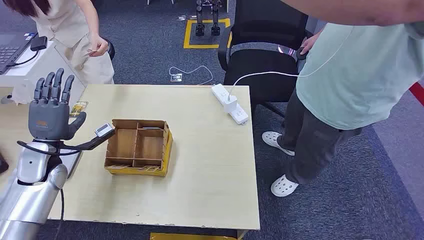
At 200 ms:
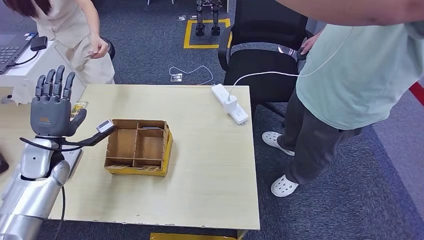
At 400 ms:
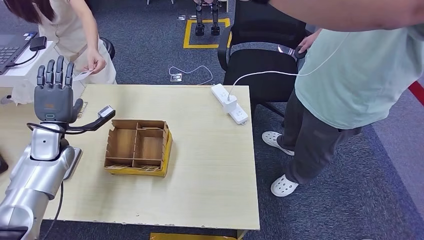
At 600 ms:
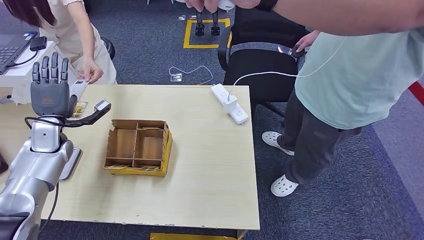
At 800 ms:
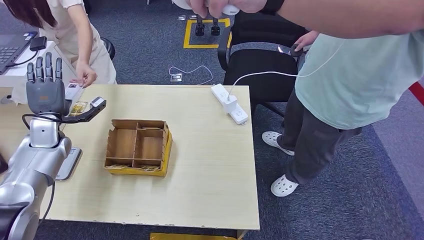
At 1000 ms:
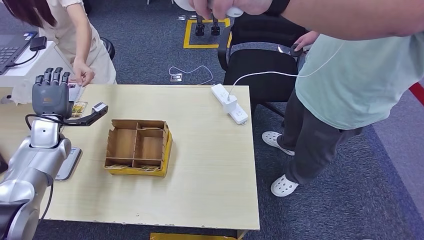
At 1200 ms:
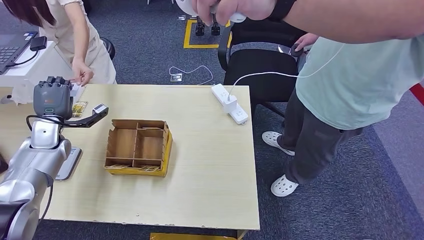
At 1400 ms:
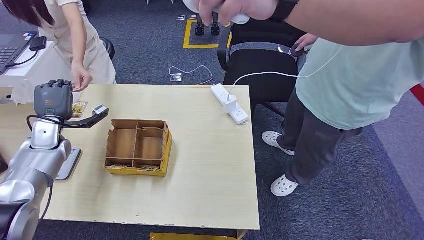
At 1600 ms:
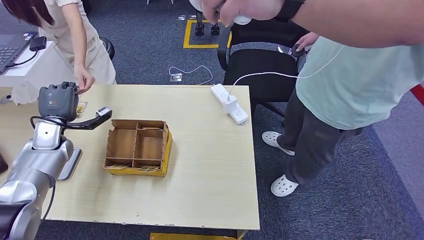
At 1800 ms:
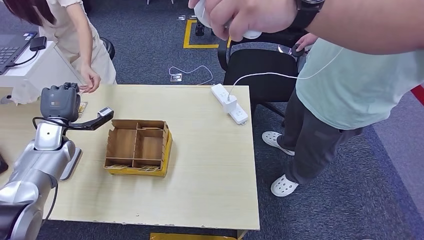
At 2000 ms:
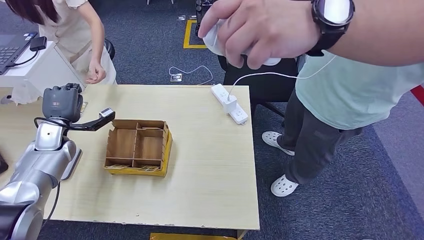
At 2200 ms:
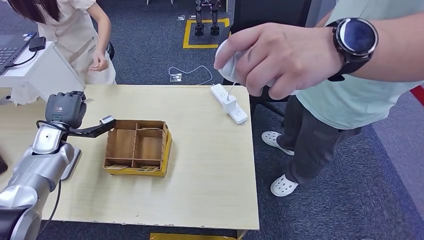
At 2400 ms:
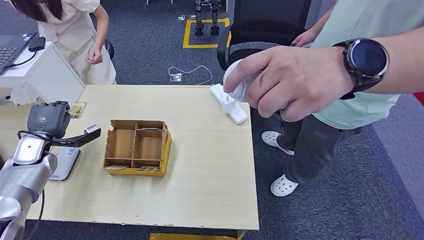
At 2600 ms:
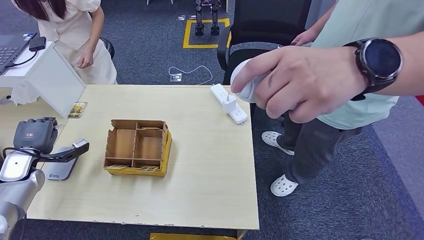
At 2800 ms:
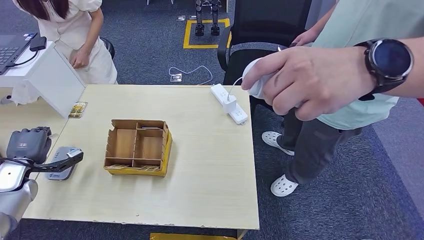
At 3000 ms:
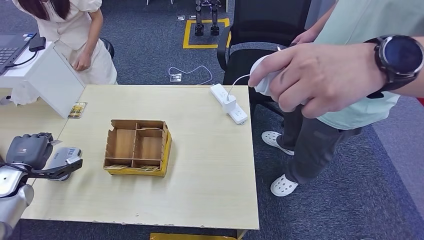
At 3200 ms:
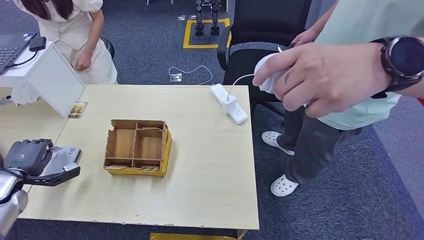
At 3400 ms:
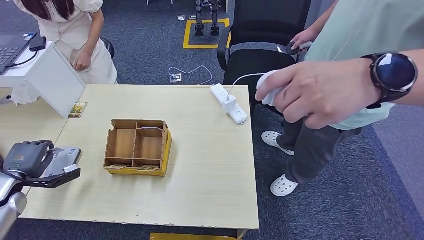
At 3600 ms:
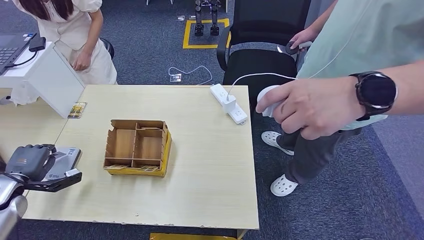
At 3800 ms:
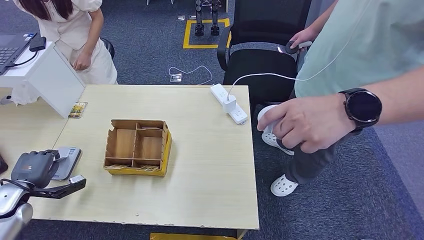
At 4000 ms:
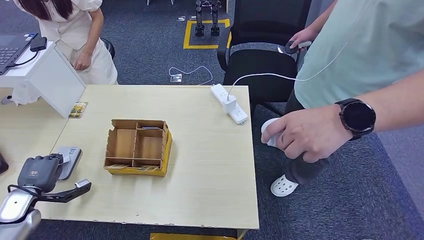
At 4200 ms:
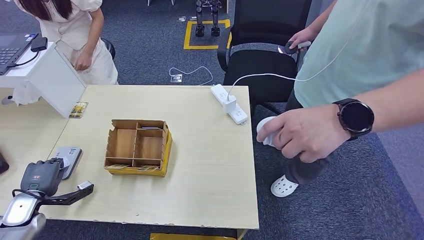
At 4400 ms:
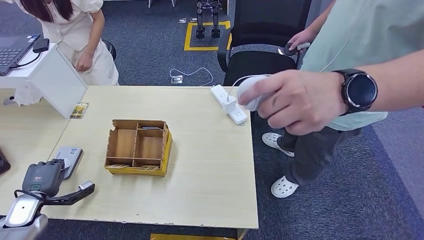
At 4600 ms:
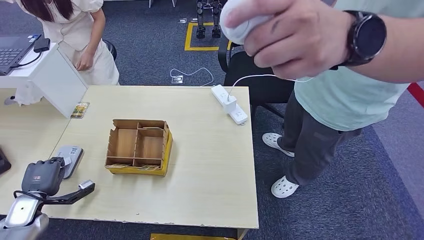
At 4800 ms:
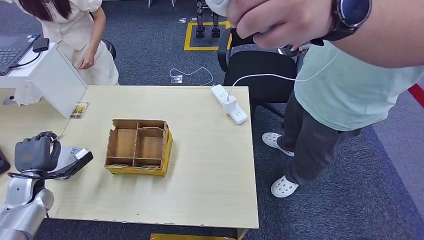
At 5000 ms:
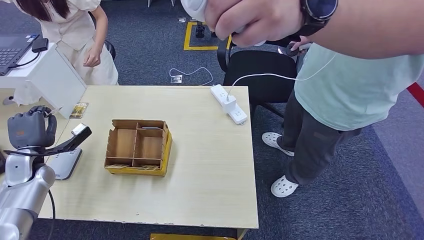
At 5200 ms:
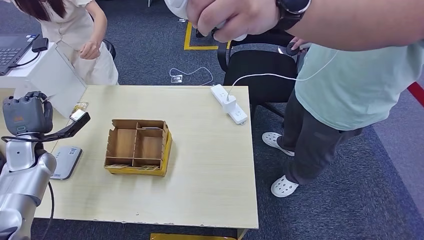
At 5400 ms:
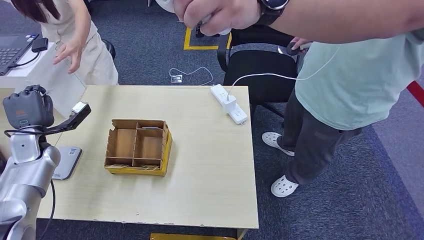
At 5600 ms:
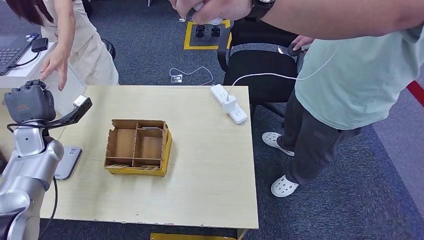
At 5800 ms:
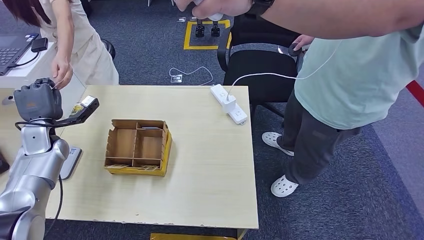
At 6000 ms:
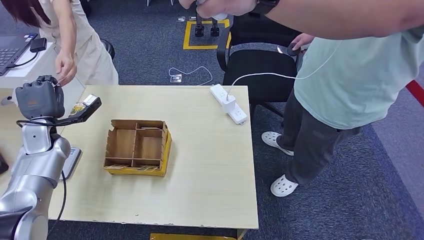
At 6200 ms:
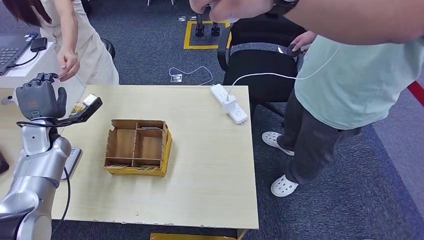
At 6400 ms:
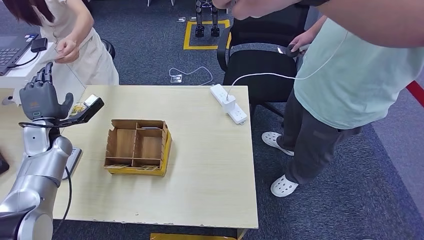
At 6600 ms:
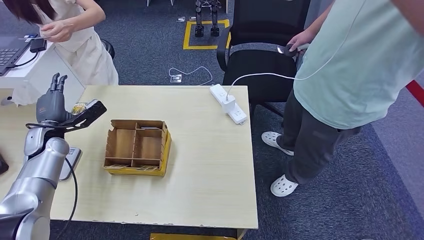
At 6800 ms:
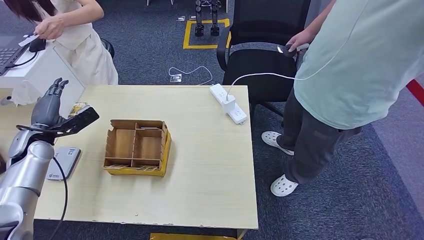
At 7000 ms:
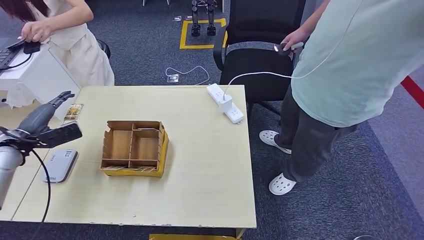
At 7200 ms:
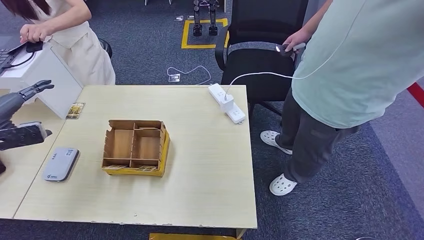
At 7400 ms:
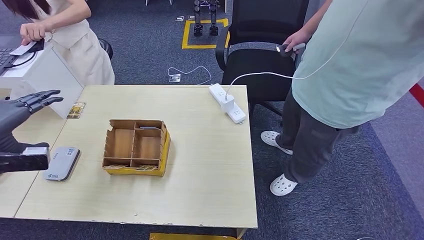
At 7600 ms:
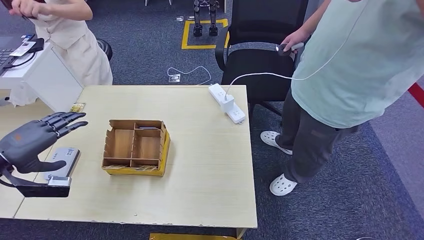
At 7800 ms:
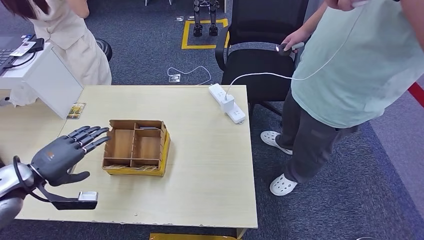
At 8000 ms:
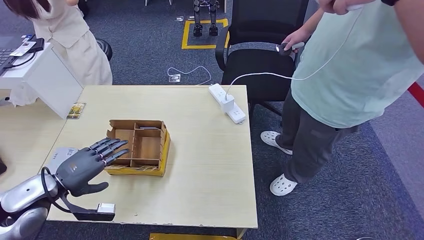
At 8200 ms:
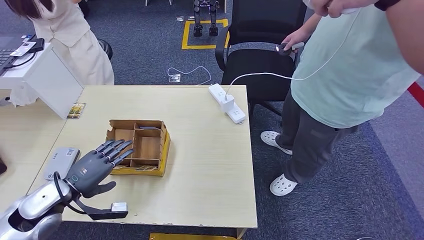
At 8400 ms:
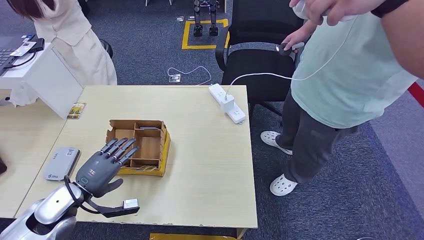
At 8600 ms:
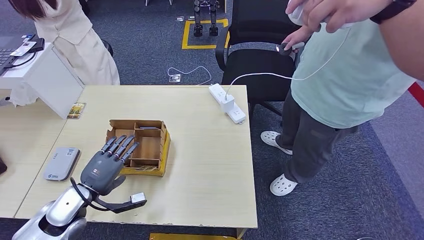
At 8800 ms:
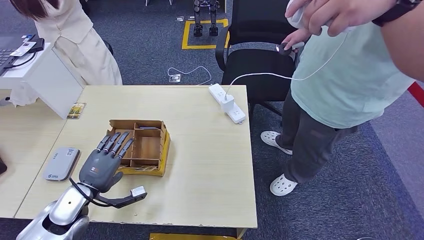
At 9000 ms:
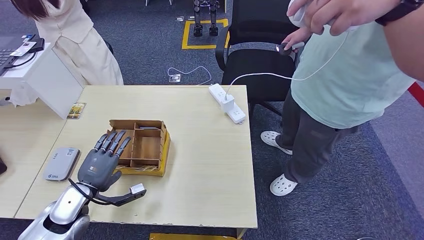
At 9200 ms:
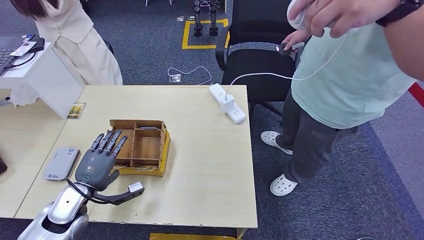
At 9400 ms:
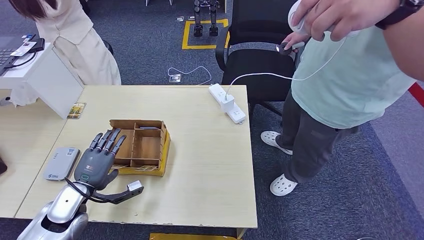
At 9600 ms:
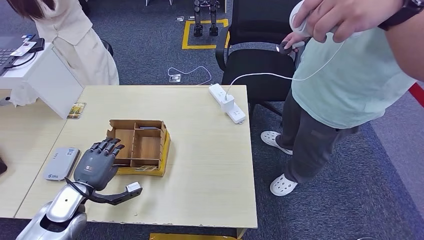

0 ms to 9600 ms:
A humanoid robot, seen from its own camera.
Step, 0 ms to 2400 ms: Take the ID card from the person's hand.
Step, 2800 ms to 4400 ms: Place the ID card on the card reader.
Step, 4600 ms to 7600 ms: Hand the ID card to the person.
8000 ms to 9600 ms: The left hand heads downward and to the right, covering roughly 10 cm.

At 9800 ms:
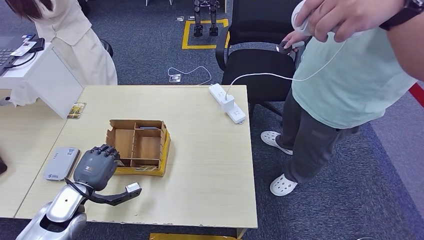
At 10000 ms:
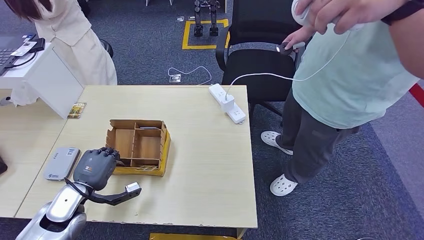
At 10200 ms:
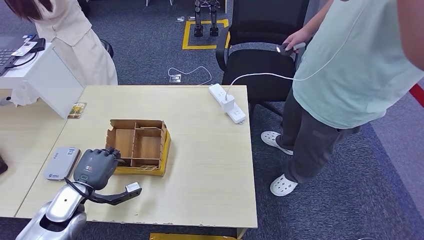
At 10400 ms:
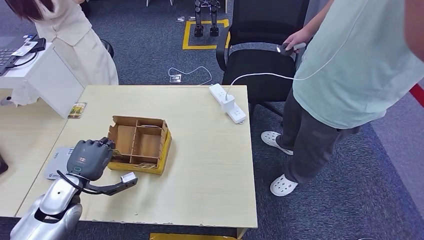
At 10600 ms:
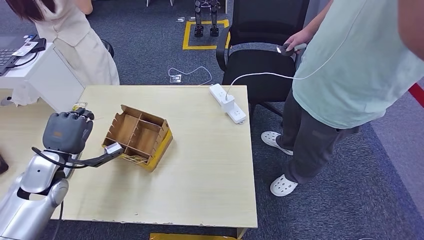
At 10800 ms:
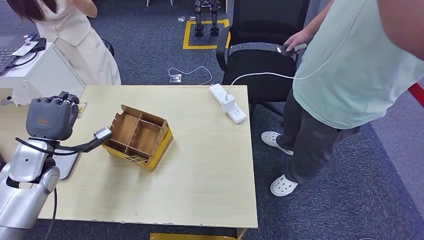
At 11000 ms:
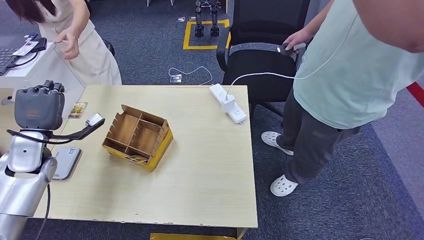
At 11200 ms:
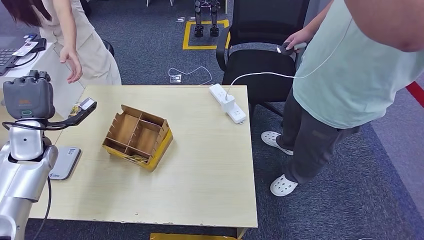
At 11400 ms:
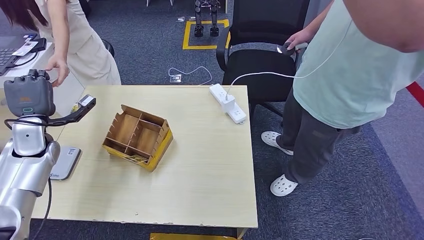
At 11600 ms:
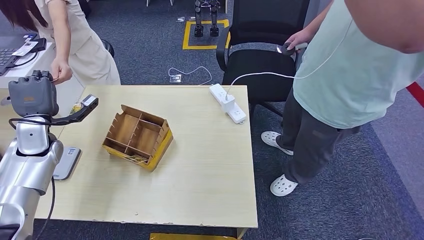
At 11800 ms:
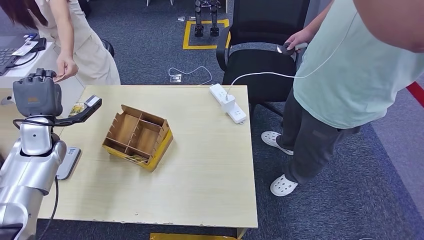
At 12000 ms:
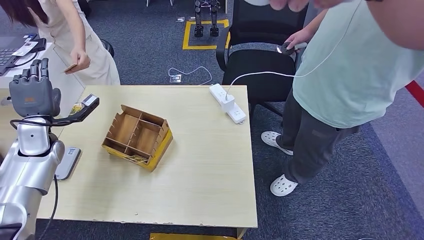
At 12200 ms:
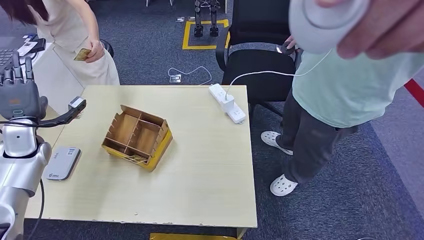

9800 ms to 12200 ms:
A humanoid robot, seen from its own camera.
Step, 11000 ms to 12000 ms: Hand the room key to the person.
11000 ms to 12200 ms: The left hand changes place by some 5 cm.
